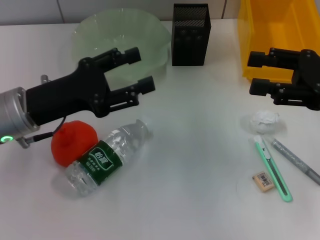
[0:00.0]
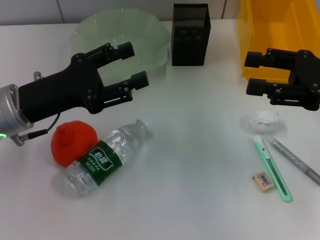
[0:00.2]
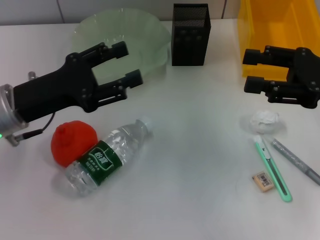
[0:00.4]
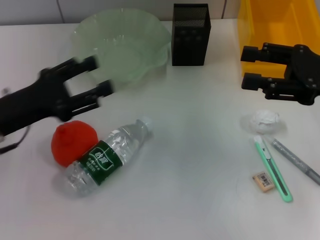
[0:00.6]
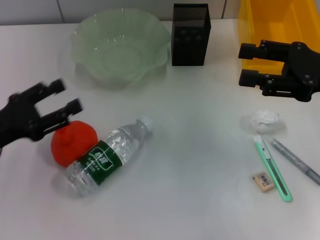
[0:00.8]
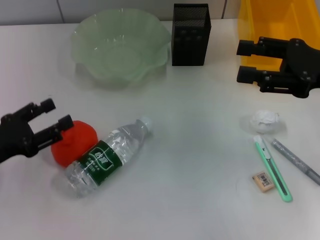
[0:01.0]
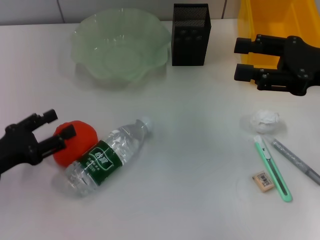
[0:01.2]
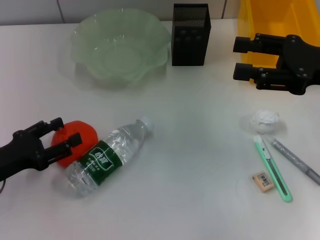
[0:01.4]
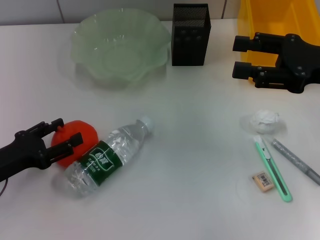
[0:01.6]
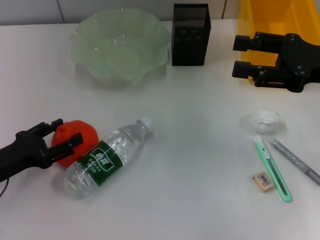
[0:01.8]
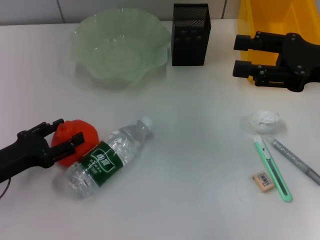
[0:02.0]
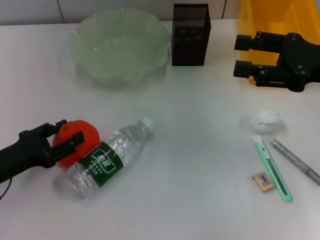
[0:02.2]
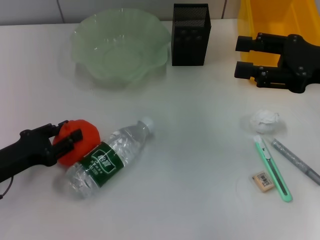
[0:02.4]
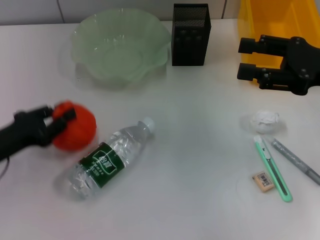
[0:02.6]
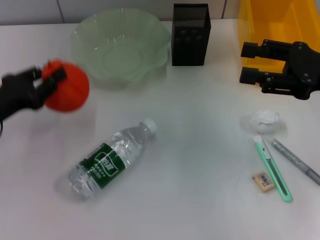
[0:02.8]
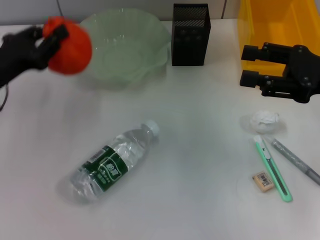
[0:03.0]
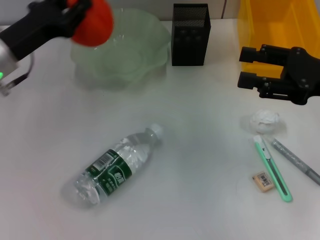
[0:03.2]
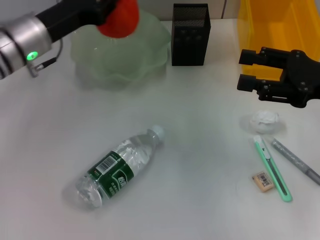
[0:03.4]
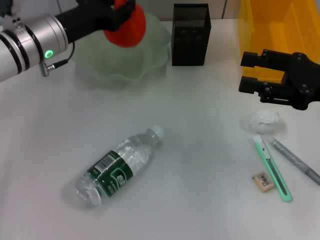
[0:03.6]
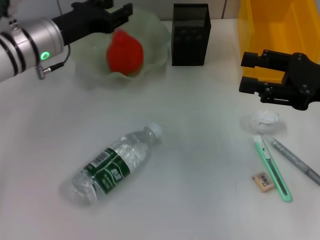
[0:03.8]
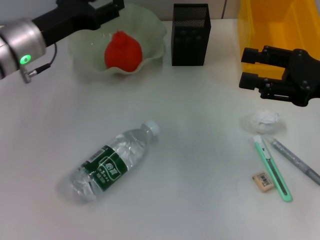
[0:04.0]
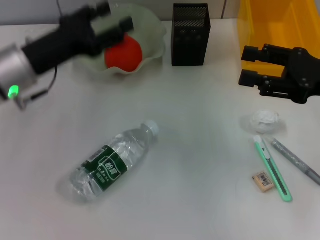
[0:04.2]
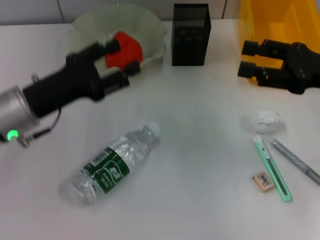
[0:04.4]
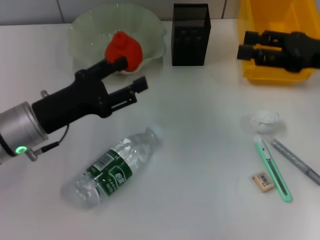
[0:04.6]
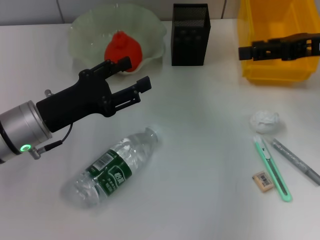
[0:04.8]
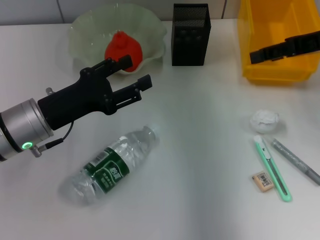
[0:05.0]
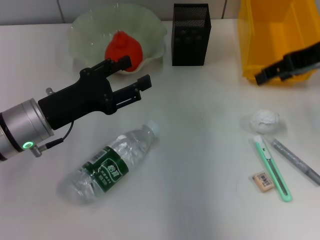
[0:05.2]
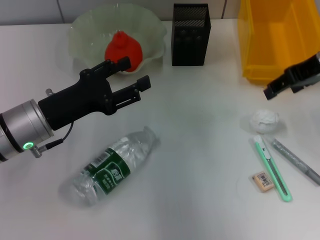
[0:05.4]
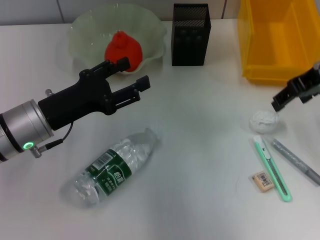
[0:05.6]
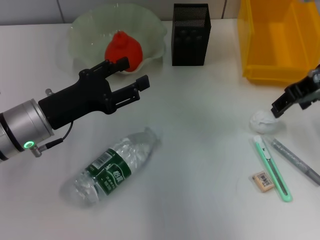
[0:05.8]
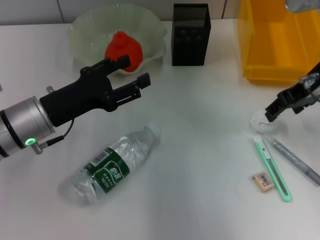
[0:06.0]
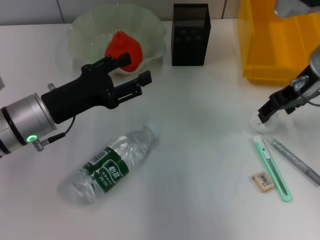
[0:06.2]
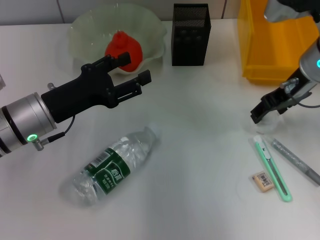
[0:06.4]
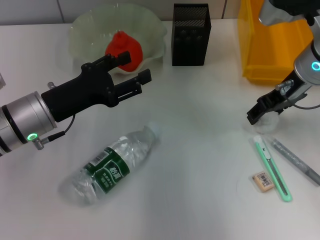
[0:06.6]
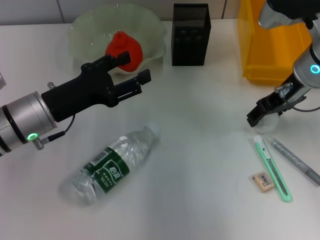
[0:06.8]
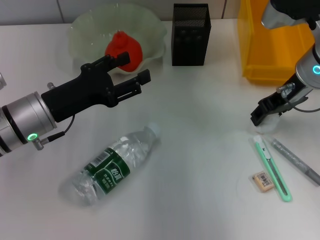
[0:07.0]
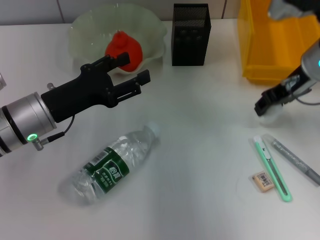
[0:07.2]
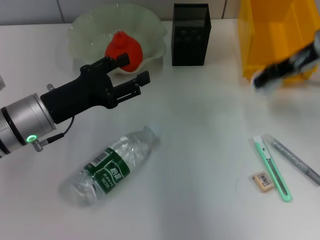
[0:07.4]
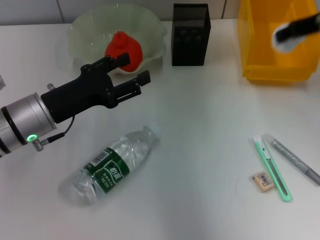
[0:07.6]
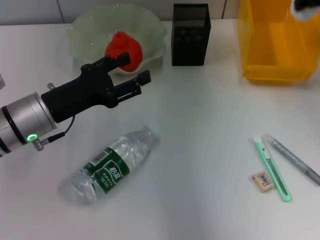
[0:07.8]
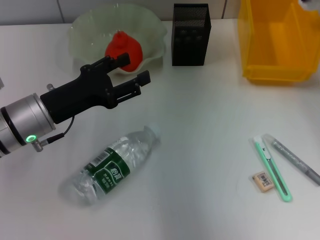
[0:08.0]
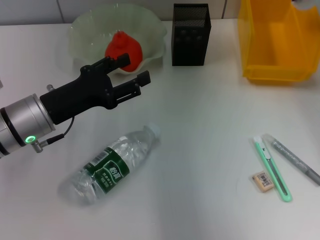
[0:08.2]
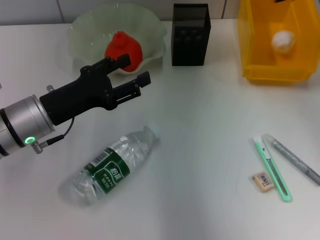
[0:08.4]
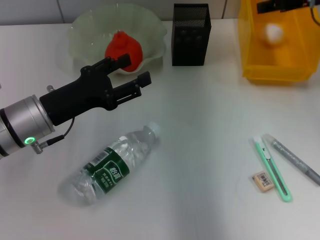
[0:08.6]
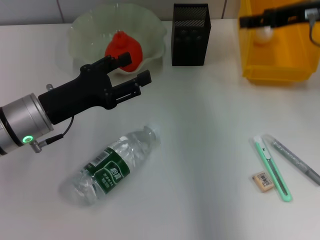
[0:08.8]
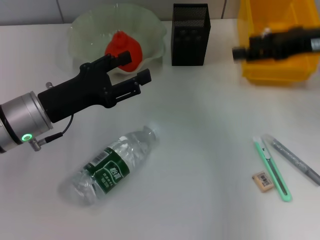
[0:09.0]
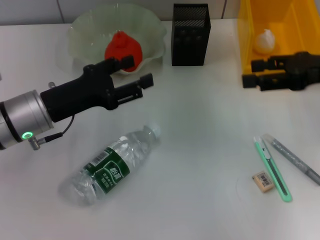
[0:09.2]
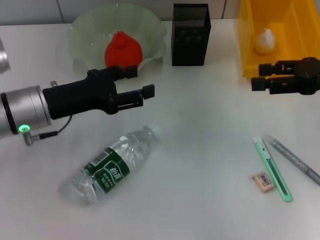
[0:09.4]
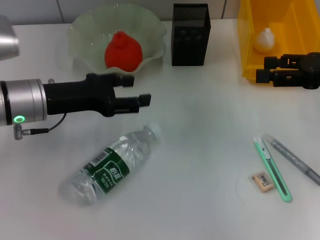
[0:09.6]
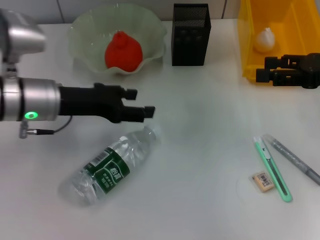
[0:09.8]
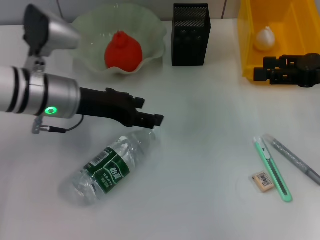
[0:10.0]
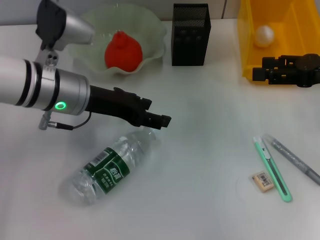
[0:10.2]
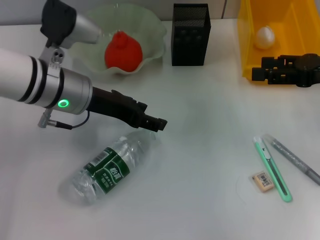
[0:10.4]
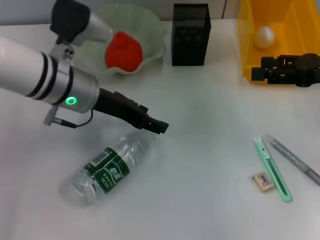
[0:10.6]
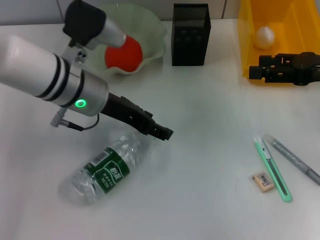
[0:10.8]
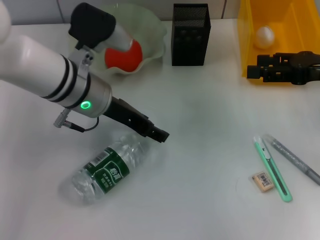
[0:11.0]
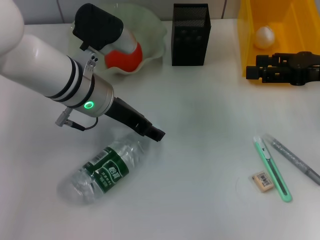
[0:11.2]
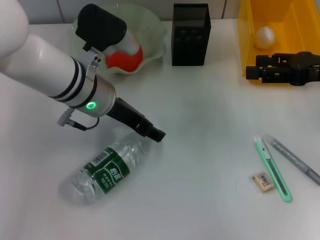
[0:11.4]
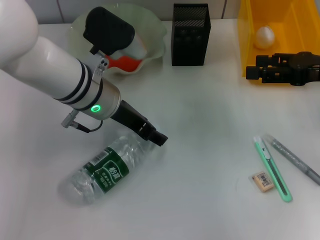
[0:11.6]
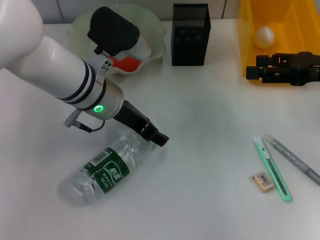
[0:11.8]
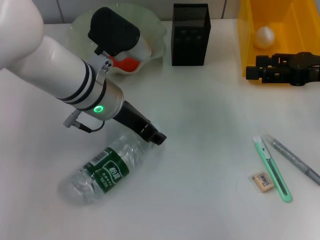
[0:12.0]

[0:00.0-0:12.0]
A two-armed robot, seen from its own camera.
Step, 0:00.0 to 0:02.2: Grab the orange with the left hand.
Step, 0:02.4 to 0:03.8: Place the orange into the fruit bowl with the left hand.
Step, 0:04.0 to 0:06.8: Grab the paper ball with the right hand.
Step, 0:07.0 to 0:08.4: Place the paper ball into the trash can with the right hand.
Step, 0:08.6 to 0:12.0: Grab the water bottle with the left hand.
0:00.0 to 0:01.6: The left gripper shifts approximately 15 cm to the left, downward and backward.
0:01.6 to 0:03.0: The left gripper travels forward and upward by roughly 10 cm, and closes.
0:03.0 to 0:04.4: The left gripper goes about 5 cm to the right, goes forward and returns, approximately 10 cm each way, and opens.
0:04.4 to 0:06.0: The right gripper goes about 10 cm forward and to the left.
0:06.0 to 0:07.6: The right gripper goes some 5 cm upward, and closes up.
0:07.6 to 0:09.0: The right gripper changes place by about 5 cm, and opens up.
0:09.0 to 0:10.4: The right gripper heads downward, covering approximately 5 cm, while the left gripper moves to the right and upward, about 10 cm.
0:10.4 to 0:12.0: The left gripper moves to the right, some 5 cm.

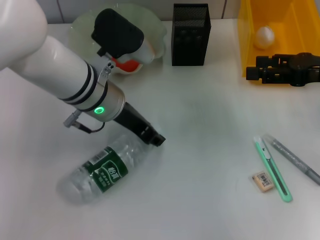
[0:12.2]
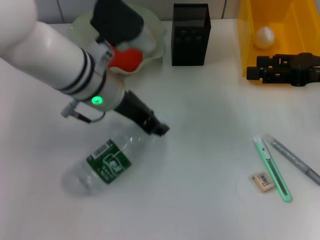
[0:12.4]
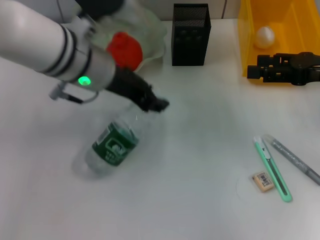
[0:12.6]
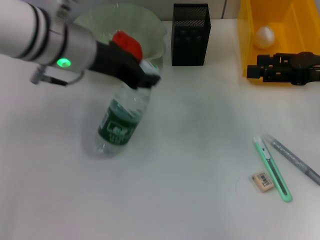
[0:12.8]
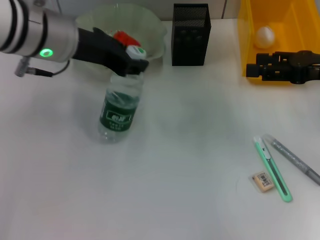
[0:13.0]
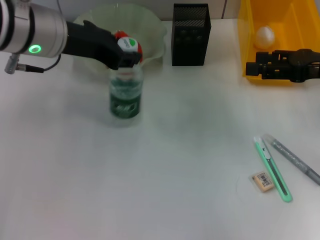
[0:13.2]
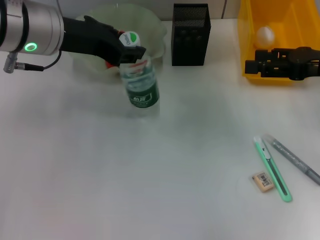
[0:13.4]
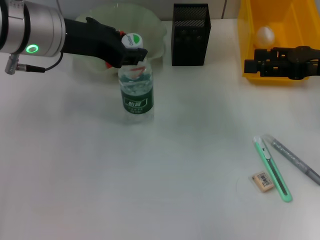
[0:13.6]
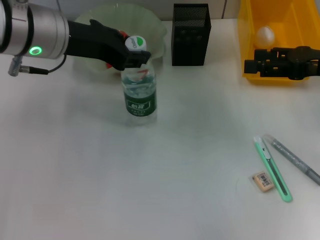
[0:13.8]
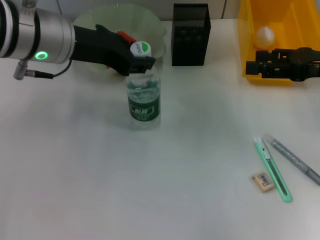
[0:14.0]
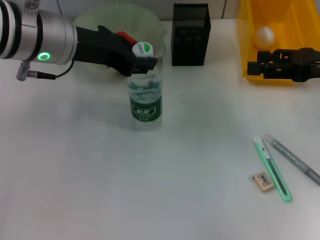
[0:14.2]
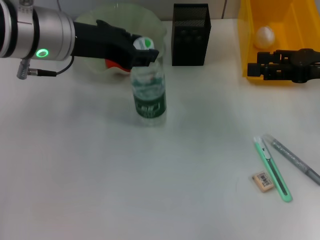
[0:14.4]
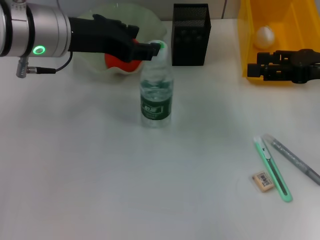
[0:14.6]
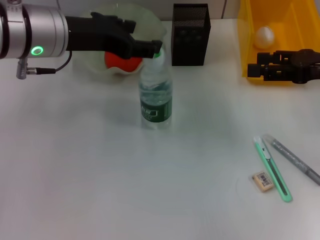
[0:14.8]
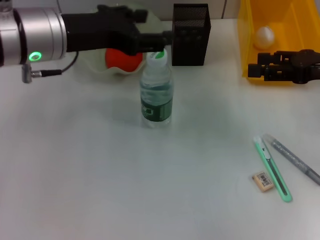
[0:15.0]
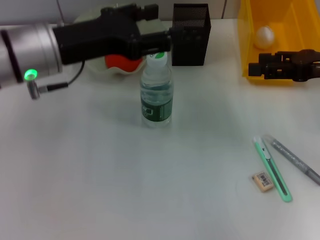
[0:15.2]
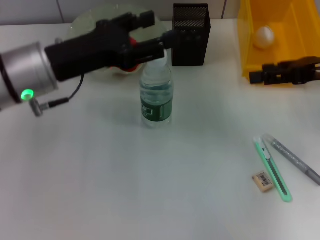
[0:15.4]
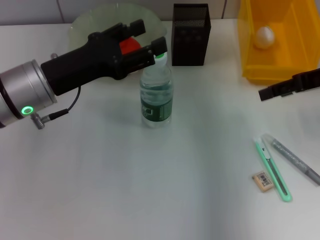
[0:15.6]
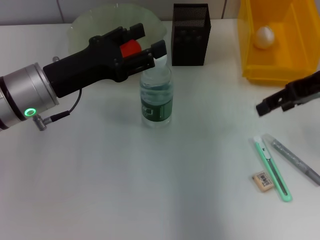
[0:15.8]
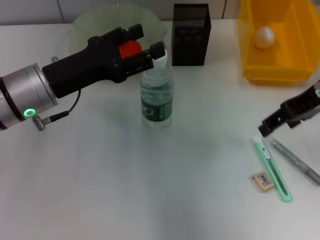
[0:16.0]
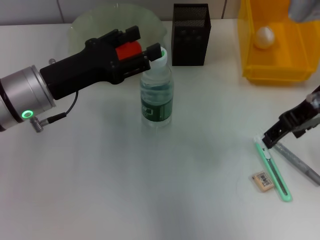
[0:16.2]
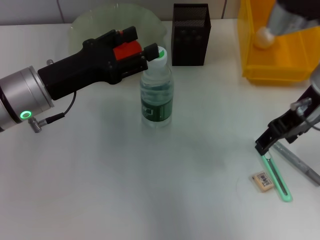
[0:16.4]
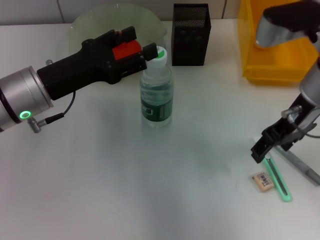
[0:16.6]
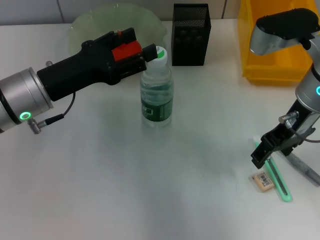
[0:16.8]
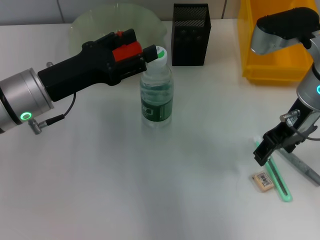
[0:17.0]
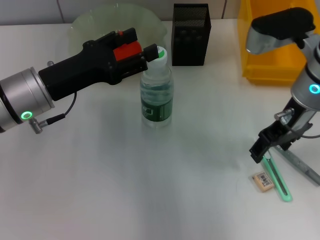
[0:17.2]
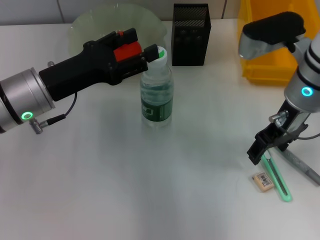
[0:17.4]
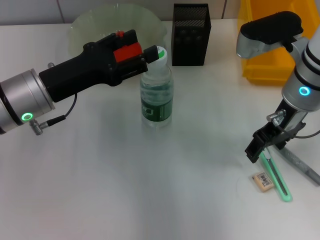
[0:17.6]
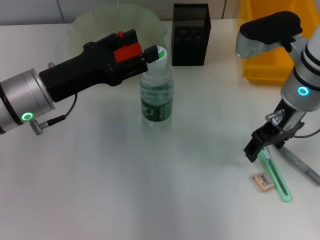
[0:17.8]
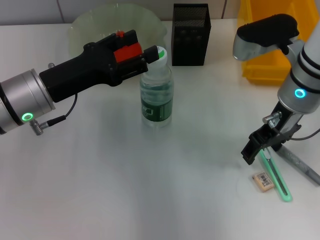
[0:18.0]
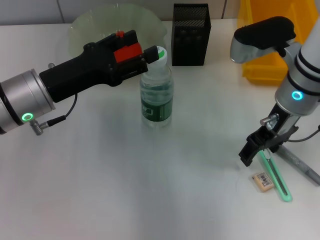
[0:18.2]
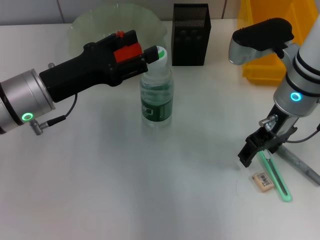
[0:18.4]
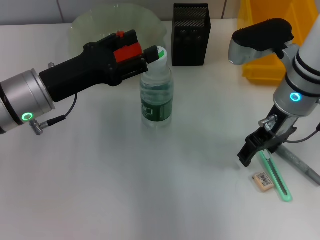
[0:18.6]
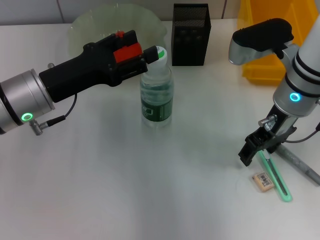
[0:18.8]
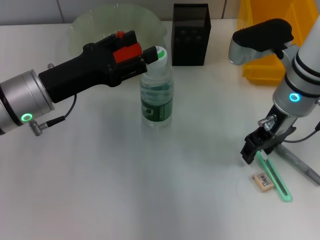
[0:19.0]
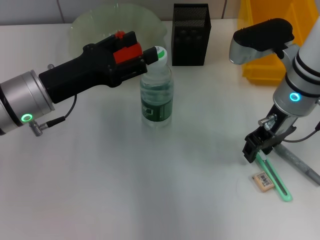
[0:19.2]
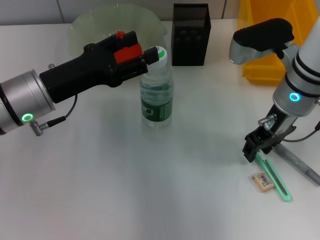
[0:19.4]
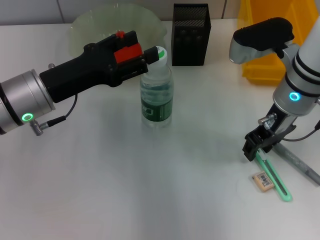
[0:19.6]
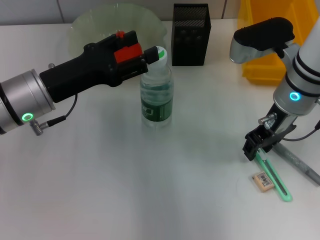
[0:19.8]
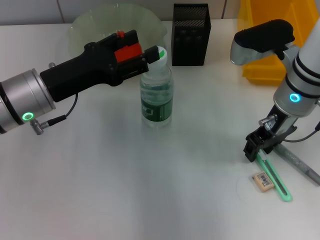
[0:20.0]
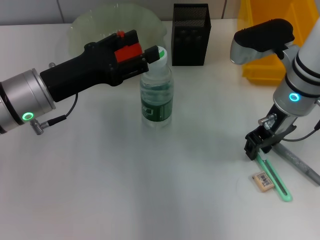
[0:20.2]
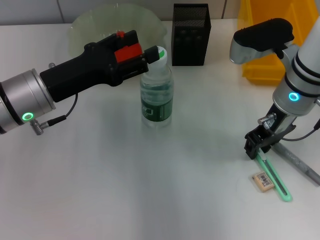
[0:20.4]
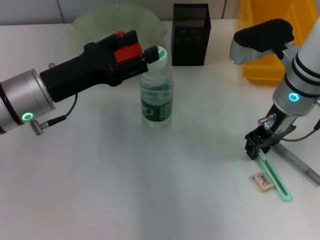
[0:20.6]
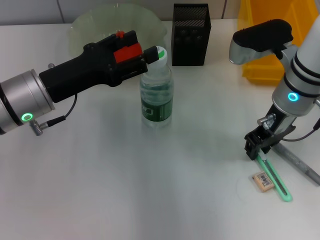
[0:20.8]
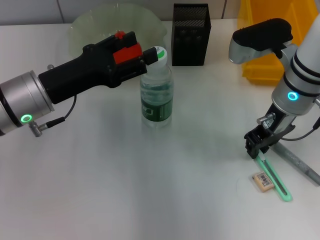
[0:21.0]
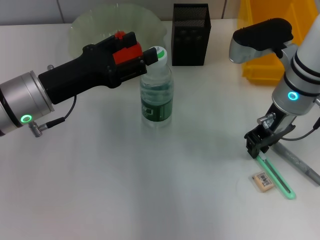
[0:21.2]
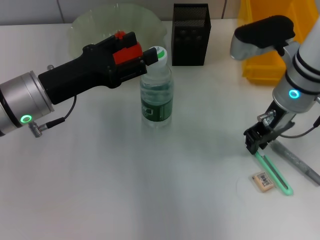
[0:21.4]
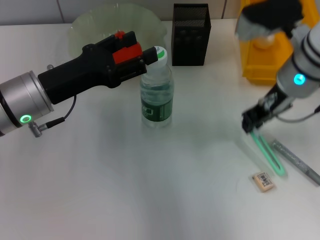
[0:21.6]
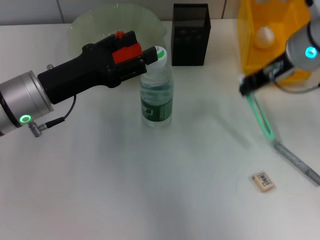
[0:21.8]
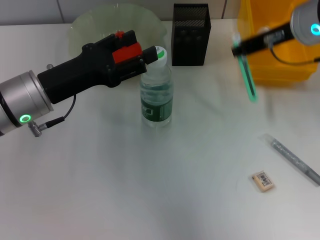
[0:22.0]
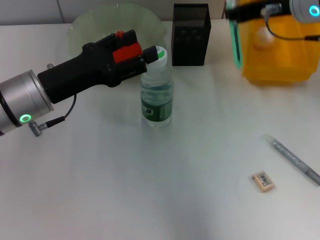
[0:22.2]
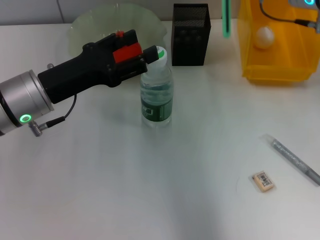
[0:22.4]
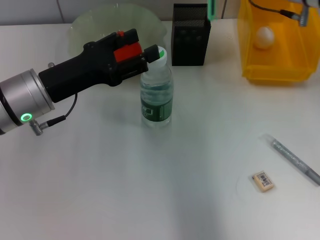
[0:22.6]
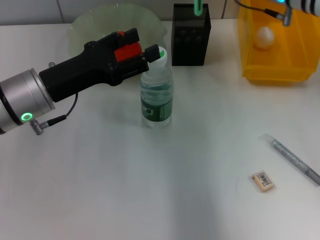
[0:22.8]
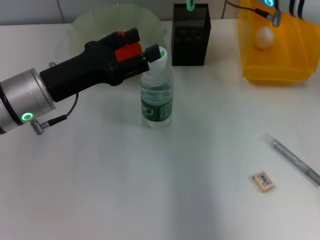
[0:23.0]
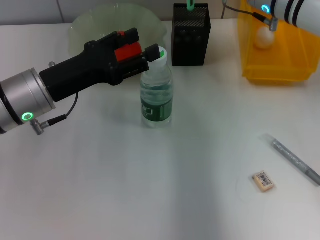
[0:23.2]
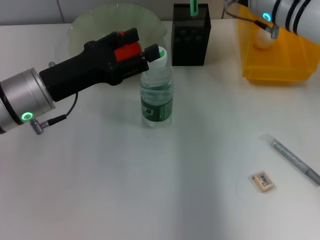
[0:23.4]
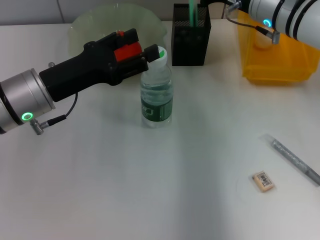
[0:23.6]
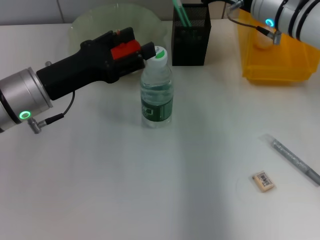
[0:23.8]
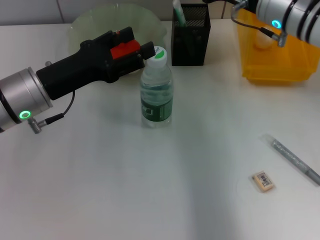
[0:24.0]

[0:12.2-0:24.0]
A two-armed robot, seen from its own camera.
Step, 0:12.2 to 0:14.4: Place the water bottle on the table with the left hand.
Step, 0:14.8 to 0:21.0: Grab the blue utility knife with the right hand.
Step, 0:21.2 to 0:23.6: Place the blue utility knife into the pen holder with the right hand.
0:12.2 to 0:13.6: The left gripper goes approximately 10 cm upward and to the left.
0:13.6 to 0:15.2: The left gripper opens its fingers.
0:15.2 to 0:16.6: The left gripper shifts roughly 5 cm downward, while the right gripper goes some 10 cm to the left.
0:16.6 to 0:18.2: The grippers move only a little.
0:18.2 to 0:19.6: The right gripper closes up.
0:19.6 to 0:21.0: Both grippers stay about where they are.
0:21.0 to 0:22.6: The right gripper is displaced upward and forward by approximately 10 cm.
